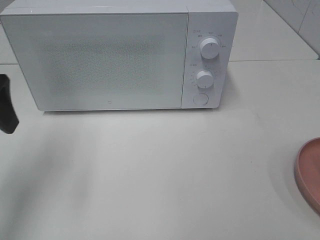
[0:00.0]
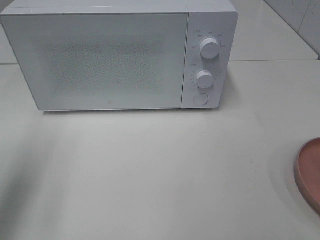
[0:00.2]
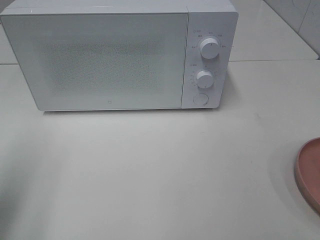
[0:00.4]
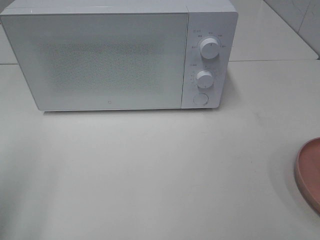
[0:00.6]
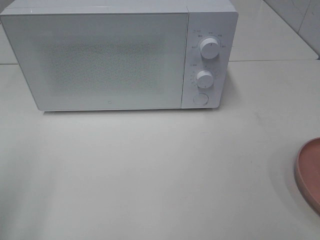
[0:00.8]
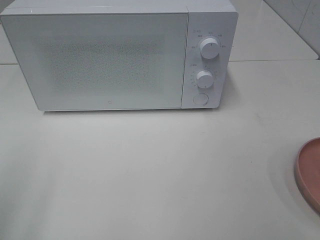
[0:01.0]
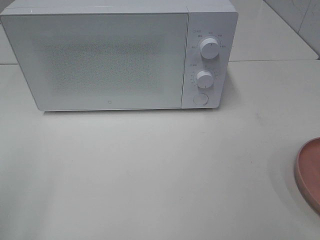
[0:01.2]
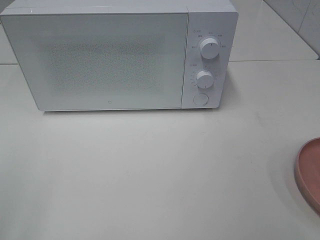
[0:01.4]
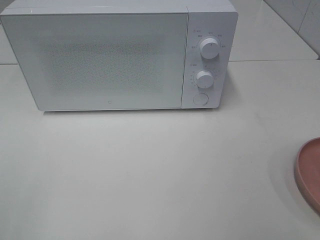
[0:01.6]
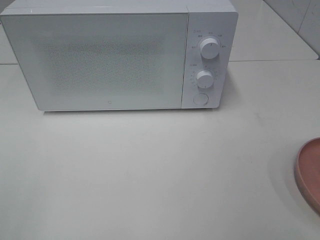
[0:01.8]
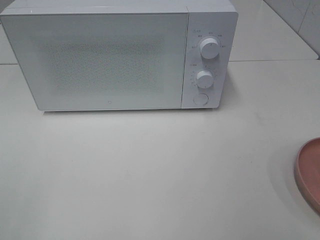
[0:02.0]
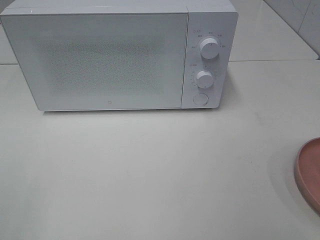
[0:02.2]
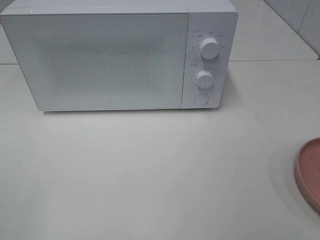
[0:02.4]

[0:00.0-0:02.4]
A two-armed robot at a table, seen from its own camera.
Task of the whole recording: Heat the burger.
0:00.0 to 0:01.2: The left gripper moves backward, roughly 20 cm.

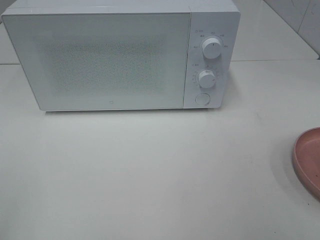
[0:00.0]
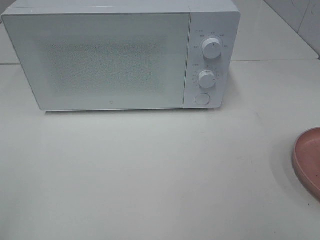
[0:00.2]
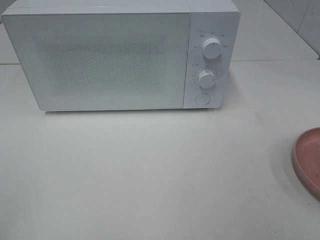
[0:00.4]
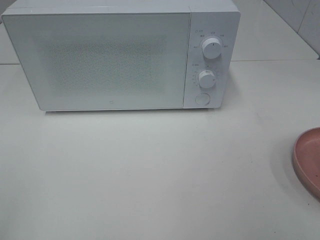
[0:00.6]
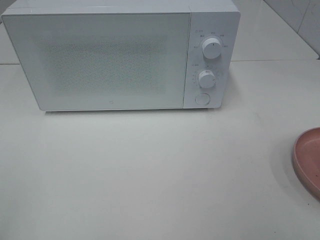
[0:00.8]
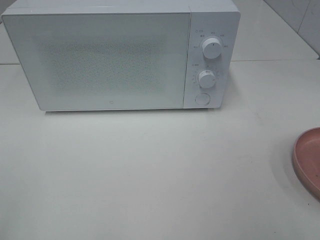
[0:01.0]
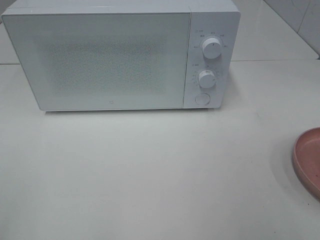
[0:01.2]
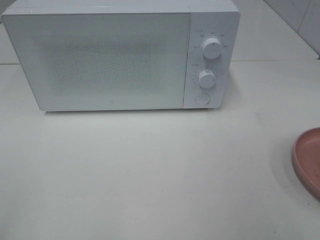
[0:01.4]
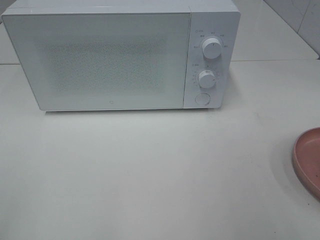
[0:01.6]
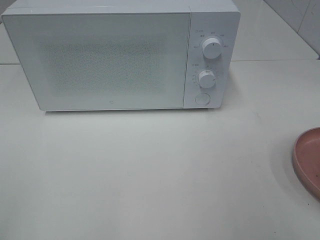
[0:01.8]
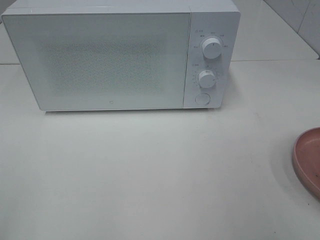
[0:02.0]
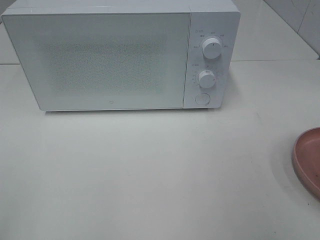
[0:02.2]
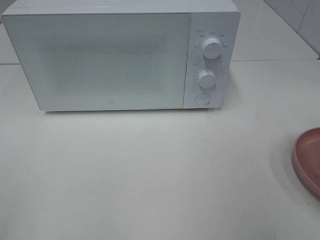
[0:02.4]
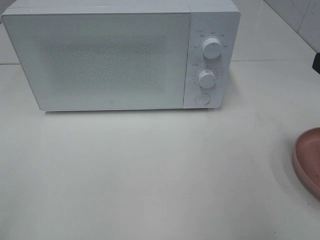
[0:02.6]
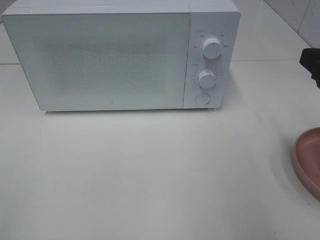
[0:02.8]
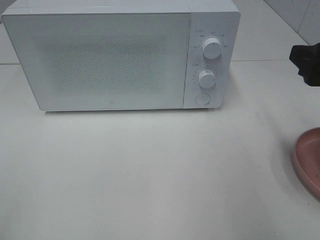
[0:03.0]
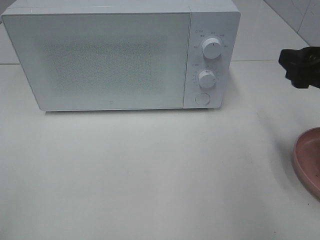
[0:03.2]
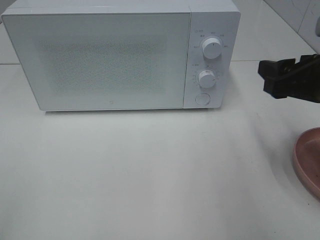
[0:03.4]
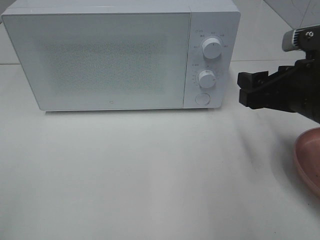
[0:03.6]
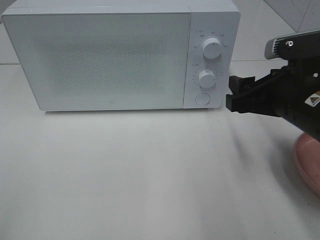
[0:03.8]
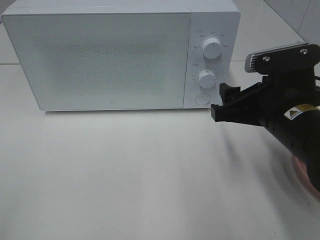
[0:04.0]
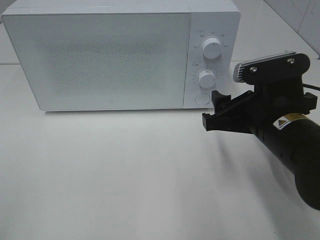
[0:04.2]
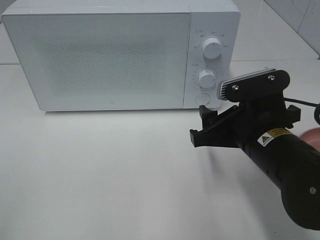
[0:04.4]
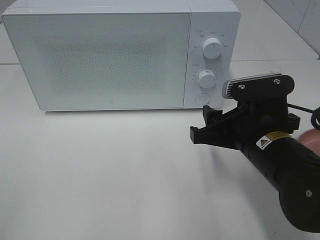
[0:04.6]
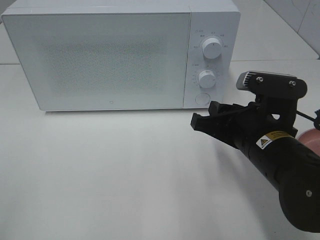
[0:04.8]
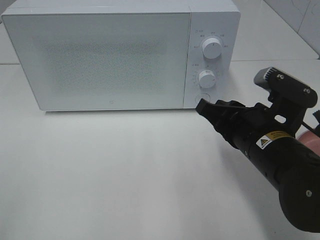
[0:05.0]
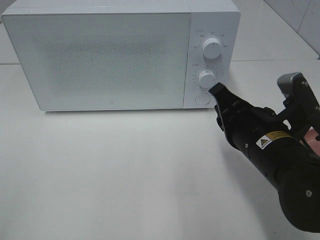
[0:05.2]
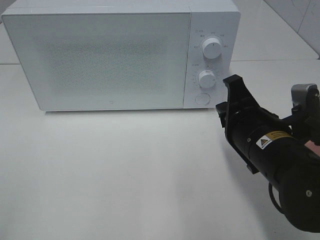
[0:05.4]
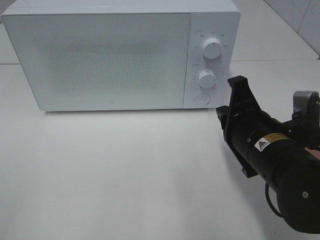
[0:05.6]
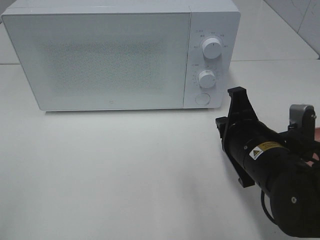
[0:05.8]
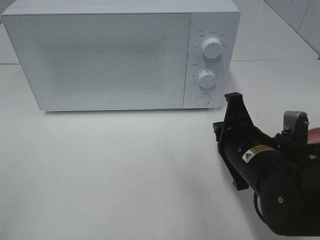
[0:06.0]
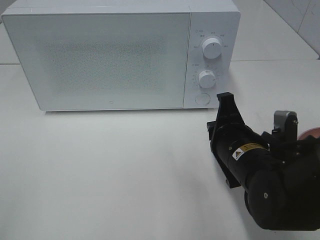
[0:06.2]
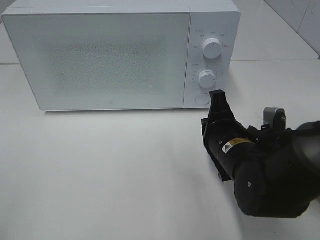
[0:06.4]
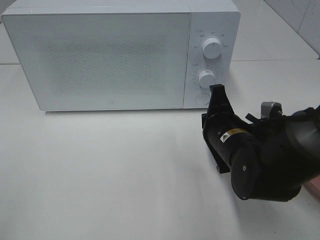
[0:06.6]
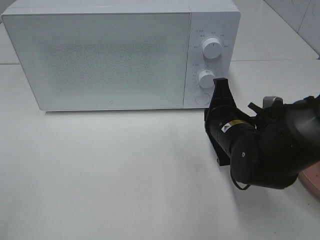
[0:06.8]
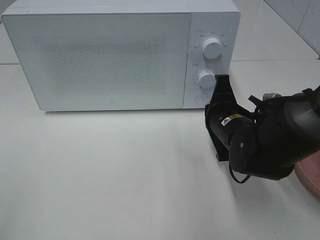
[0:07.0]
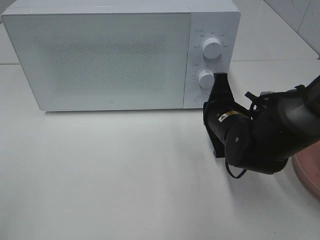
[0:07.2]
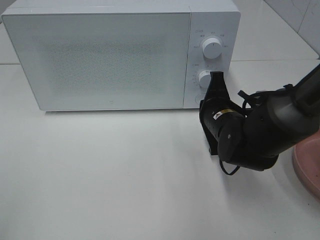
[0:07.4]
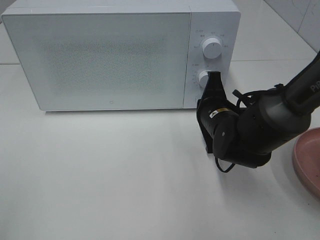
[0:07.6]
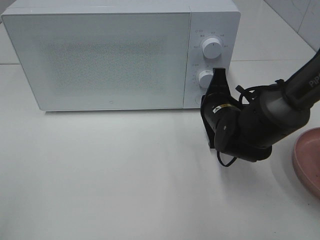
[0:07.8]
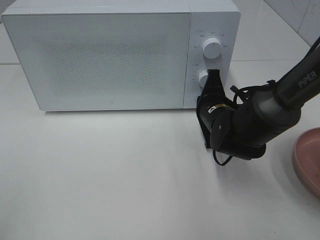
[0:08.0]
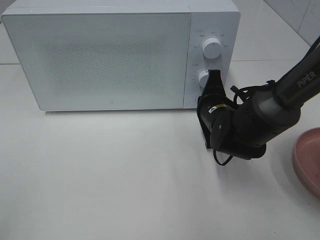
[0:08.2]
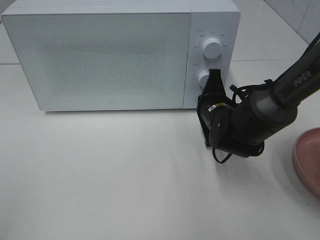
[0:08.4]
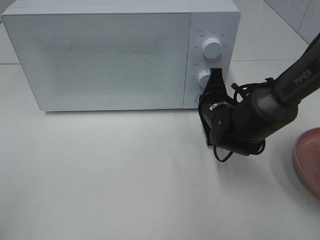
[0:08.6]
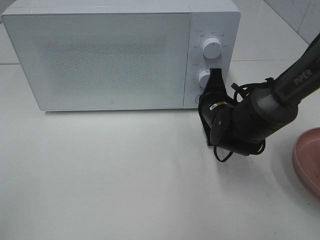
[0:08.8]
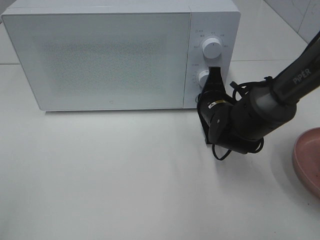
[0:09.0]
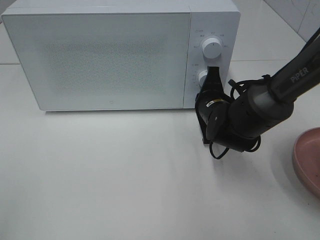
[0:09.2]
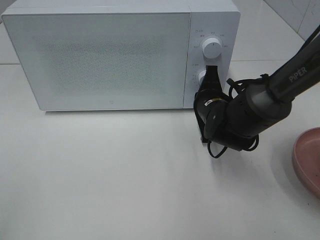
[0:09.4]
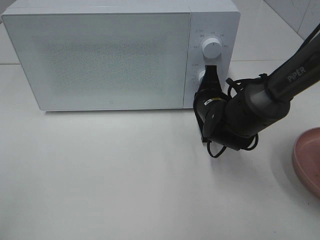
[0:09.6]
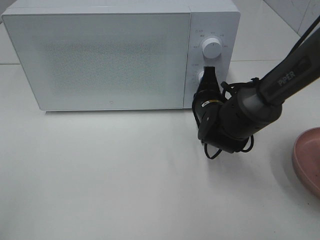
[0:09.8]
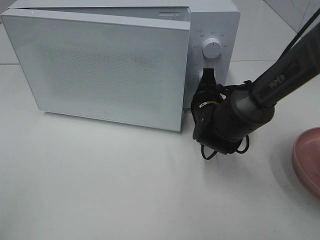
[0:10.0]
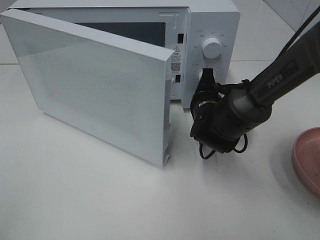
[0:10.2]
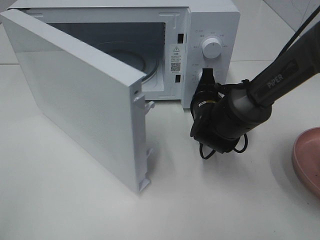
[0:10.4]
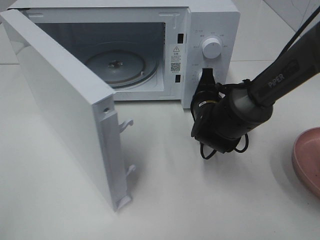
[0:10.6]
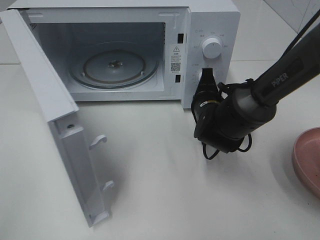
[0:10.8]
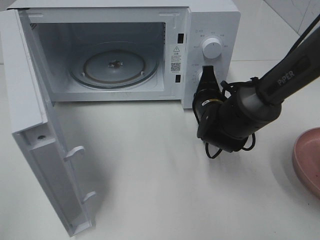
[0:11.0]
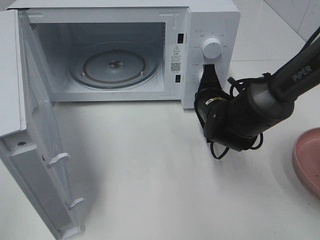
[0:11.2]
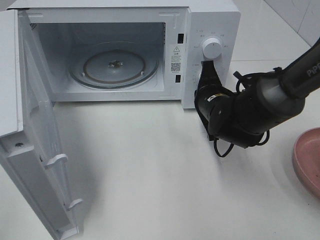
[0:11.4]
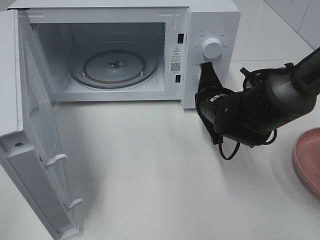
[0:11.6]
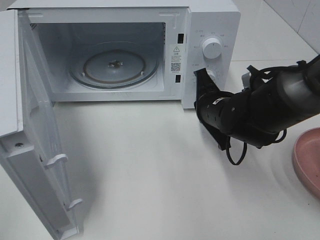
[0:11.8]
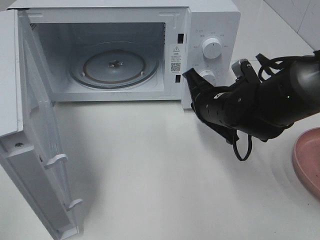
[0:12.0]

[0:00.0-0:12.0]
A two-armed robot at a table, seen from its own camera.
Task of the whole recording: Heat the burger.
Step, 0:00.0 to 0:11.4: Right hand: press the switch.
0:01.6 to 0:03.0: The right gripper goes about 15 cm forward.
0:03.0 to 0:04.4: The right gripper moves to the left and downward, about 15 cm.
0:04.4 to 0:06.0: The right gripper closes up.
0:06.0 to 0:07.6: The right gripper shifts about 10 cm forward.
0:07.6 to 0:09.0: The grippers move only a little.
0:10.4 to 0:12.0: The right gripper ends up approximately 5 cm from where it was.

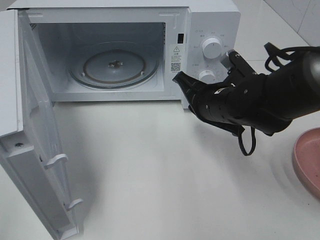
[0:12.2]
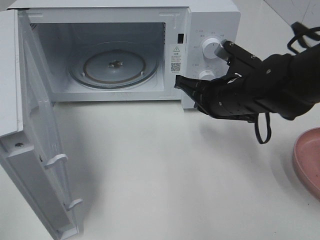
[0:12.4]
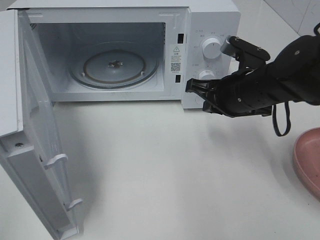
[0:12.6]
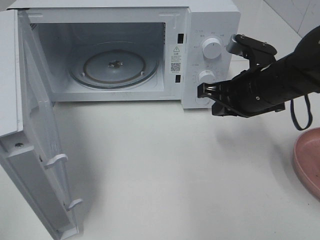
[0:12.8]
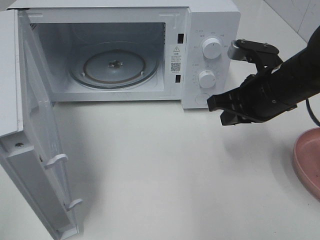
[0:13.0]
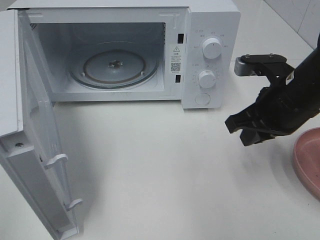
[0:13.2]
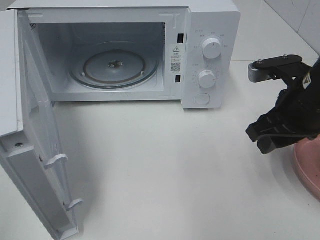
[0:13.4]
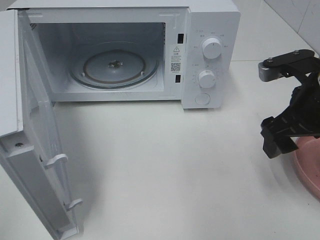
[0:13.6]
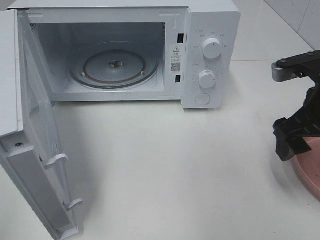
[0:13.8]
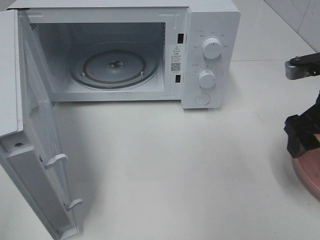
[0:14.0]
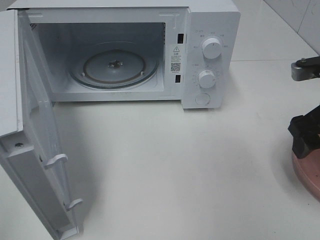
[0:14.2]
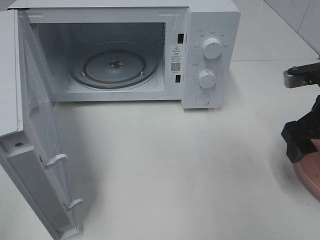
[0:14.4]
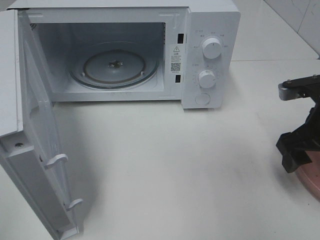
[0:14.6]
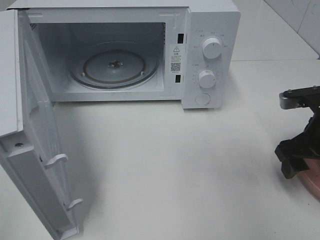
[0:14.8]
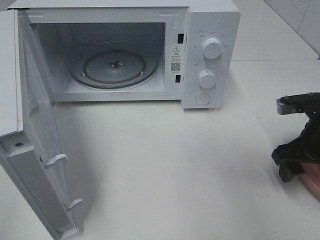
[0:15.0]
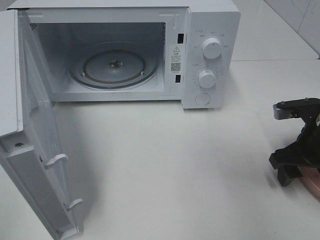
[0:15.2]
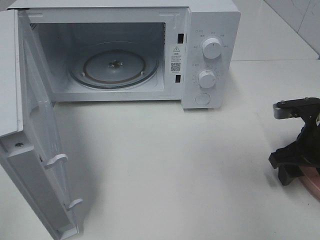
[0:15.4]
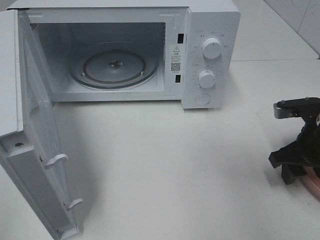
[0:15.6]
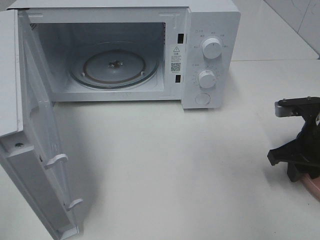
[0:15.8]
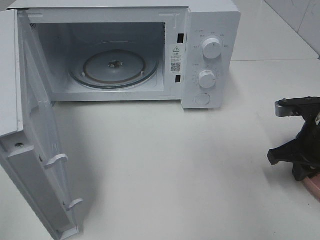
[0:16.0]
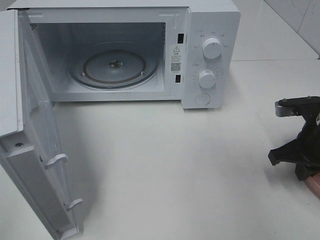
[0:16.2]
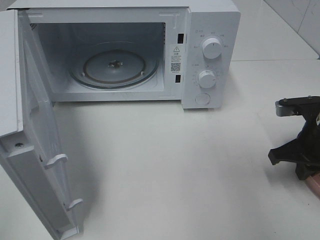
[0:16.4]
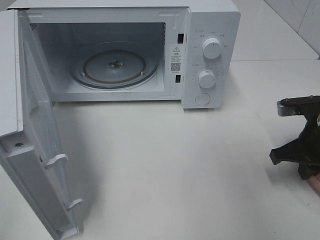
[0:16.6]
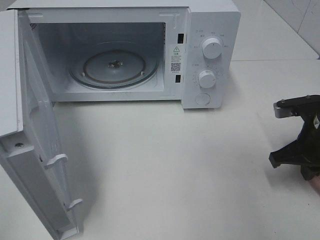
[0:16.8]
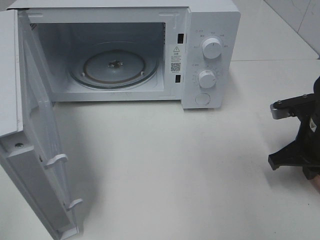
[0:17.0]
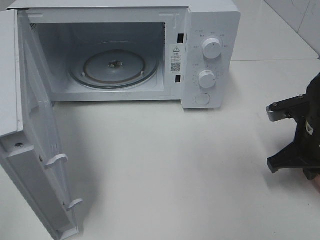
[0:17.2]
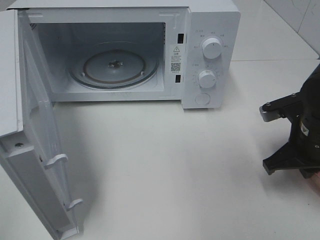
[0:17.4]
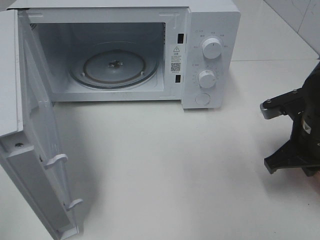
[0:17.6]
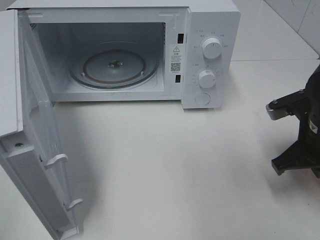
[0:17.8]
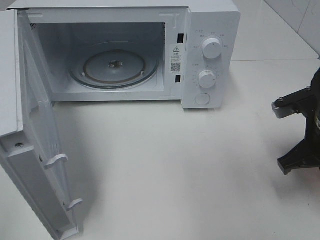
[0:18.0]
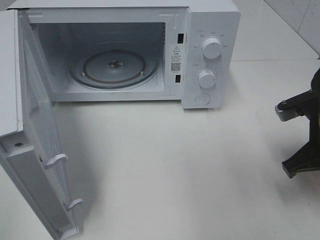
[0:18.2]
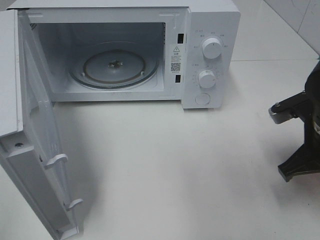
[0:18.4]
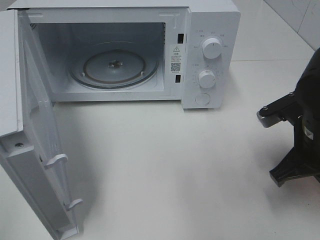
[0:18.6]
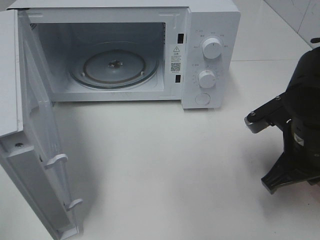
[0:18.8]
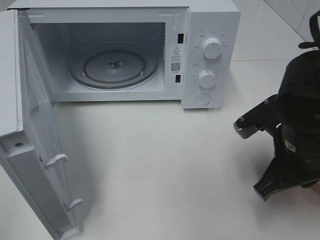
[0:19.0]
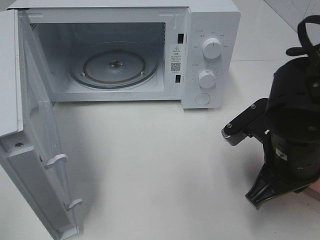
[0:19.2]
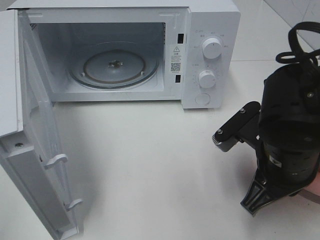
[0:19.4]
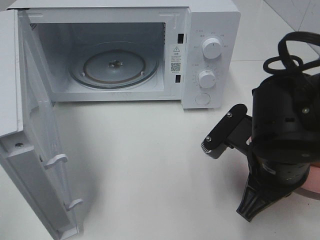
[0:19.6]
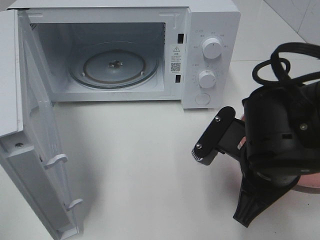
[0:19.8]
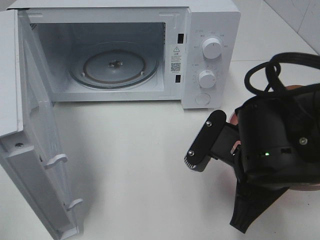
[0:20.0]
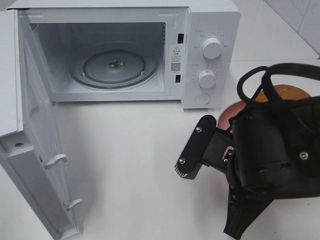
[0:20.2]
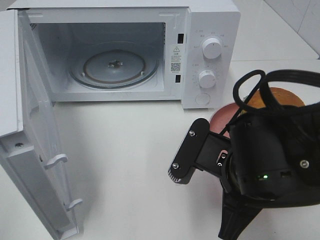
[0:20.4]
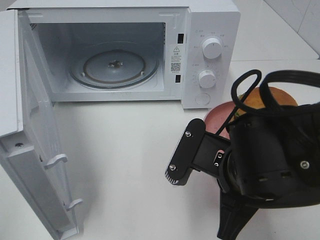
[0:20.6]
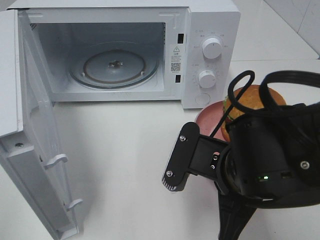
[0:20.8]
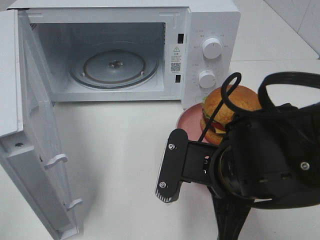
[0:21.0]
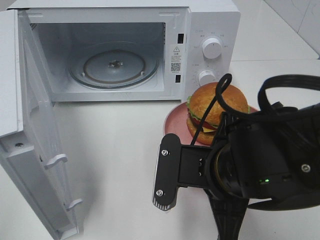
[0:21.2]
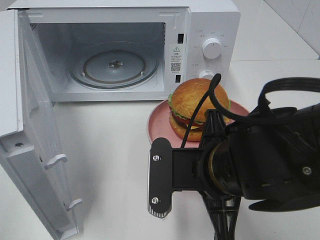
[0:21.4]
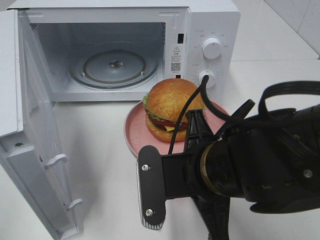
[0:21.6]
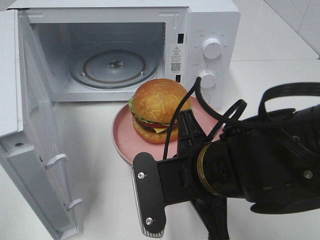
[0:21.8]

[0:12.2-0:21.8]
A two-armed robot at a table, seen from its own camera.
Task of the whole recording: Heat the burger.
Step, 0:12.2 to 0:16.8: Right hand: grab the plate with the hamburger.
0:12.2 to 0:13.8: The right gripper heads to the right, upward and backward, covering some 15 cm, and opens.
0:13.8 to 0:15.4: The right gripper shifts about 10 cm downward.
0:15.4 to 0:17.0: The right gripper closes.
0:17.0 to 0:18.6: The right gripper moves about 5 cm.
0:18.6 to 0:20.2: The right gripper moves to the left and backward, approximately 15 cm.
